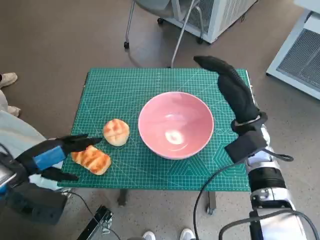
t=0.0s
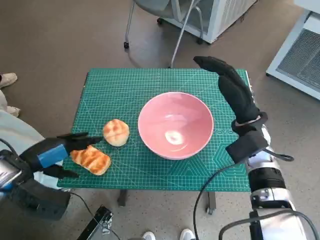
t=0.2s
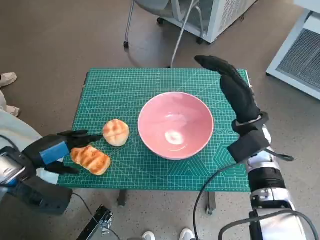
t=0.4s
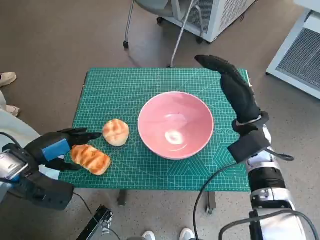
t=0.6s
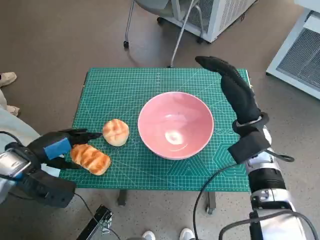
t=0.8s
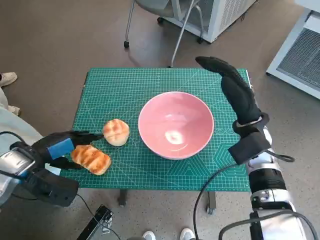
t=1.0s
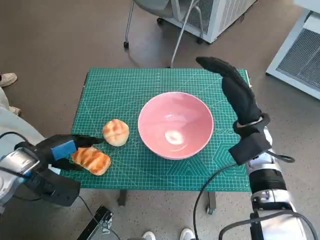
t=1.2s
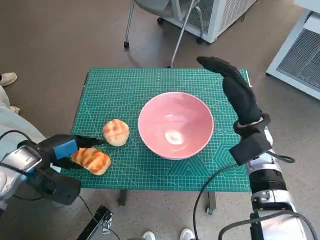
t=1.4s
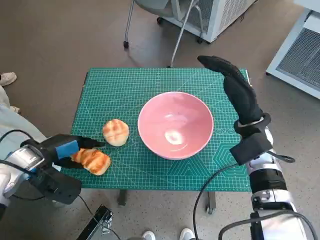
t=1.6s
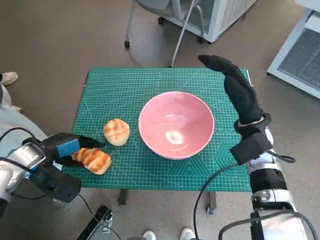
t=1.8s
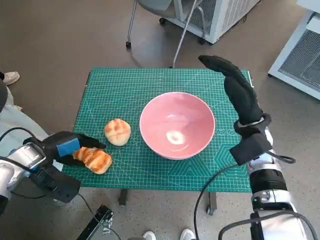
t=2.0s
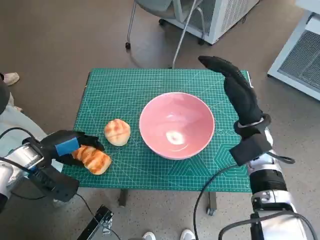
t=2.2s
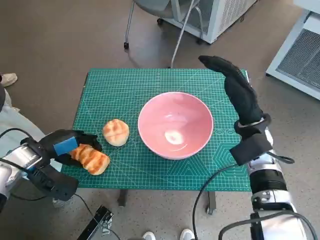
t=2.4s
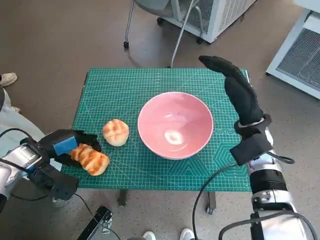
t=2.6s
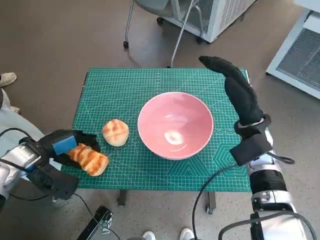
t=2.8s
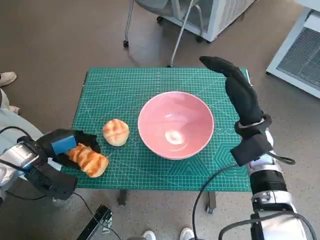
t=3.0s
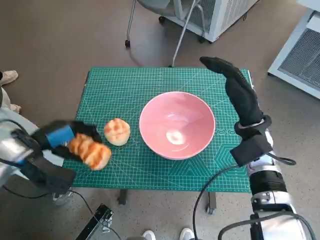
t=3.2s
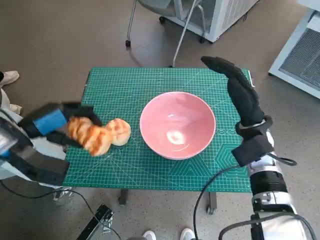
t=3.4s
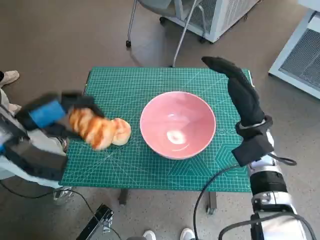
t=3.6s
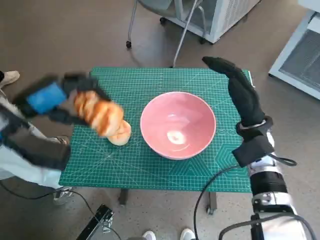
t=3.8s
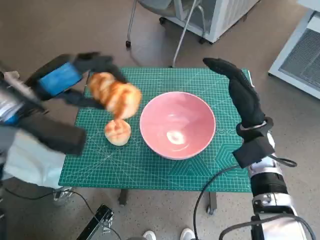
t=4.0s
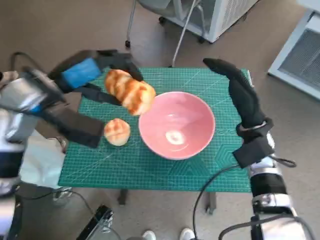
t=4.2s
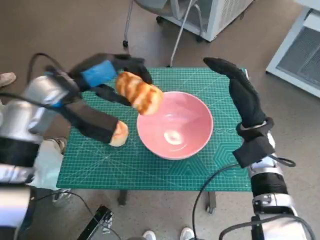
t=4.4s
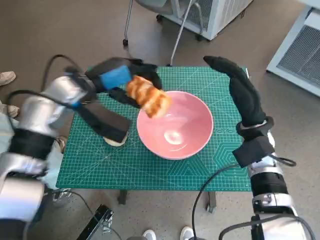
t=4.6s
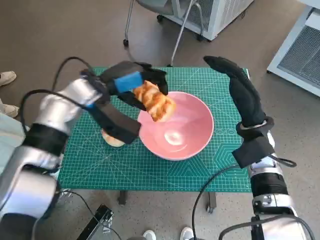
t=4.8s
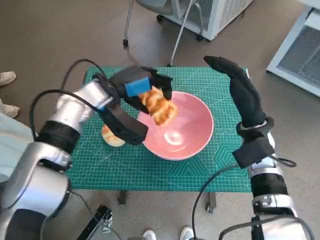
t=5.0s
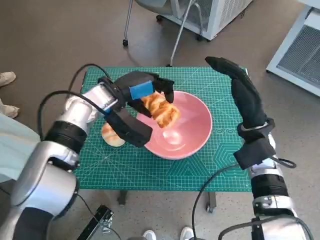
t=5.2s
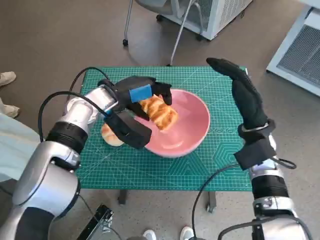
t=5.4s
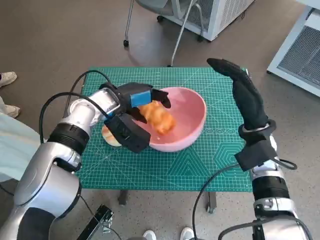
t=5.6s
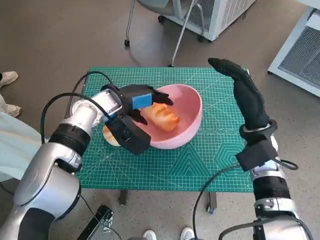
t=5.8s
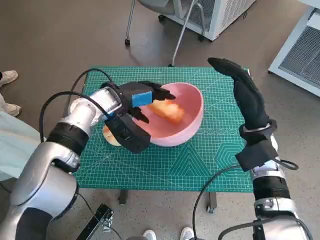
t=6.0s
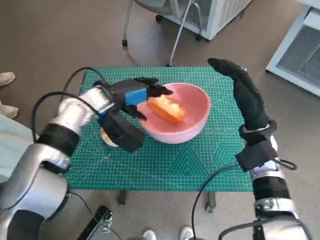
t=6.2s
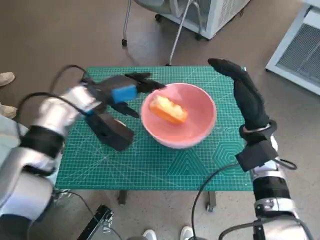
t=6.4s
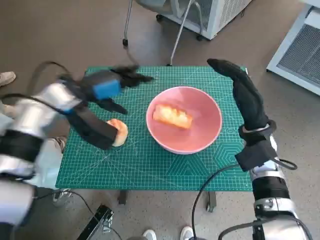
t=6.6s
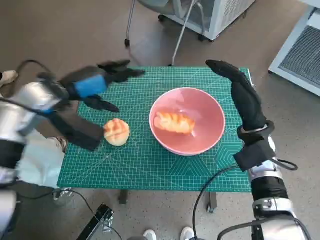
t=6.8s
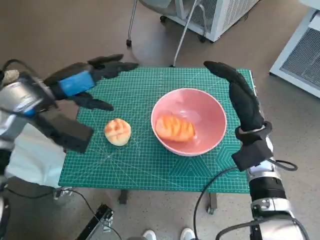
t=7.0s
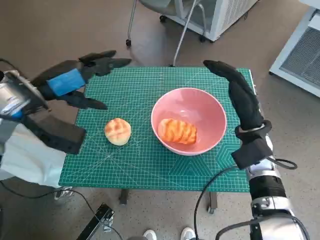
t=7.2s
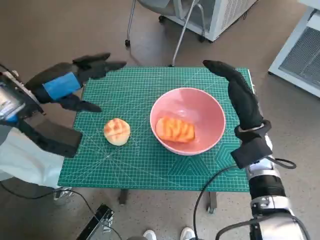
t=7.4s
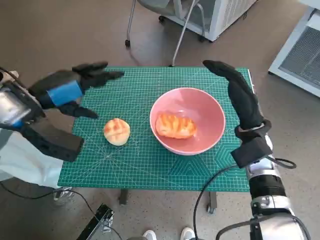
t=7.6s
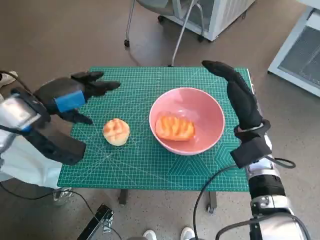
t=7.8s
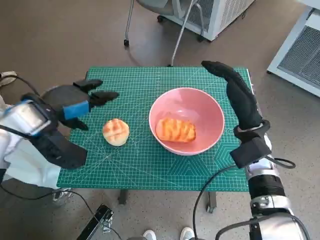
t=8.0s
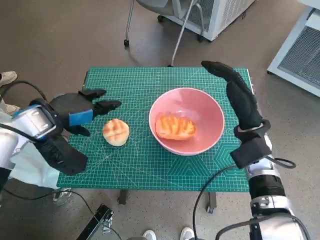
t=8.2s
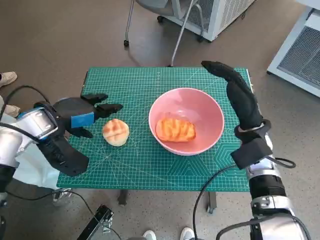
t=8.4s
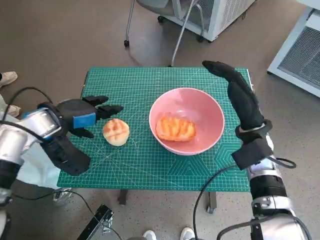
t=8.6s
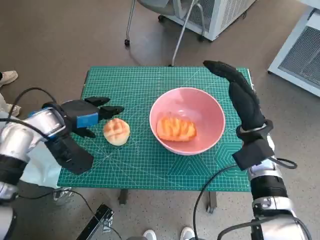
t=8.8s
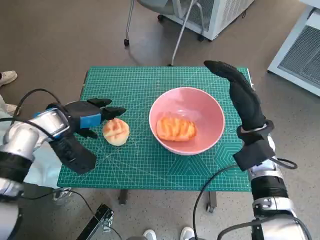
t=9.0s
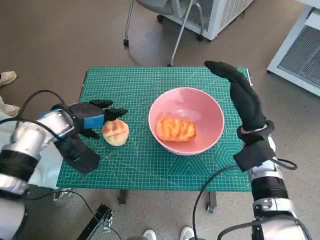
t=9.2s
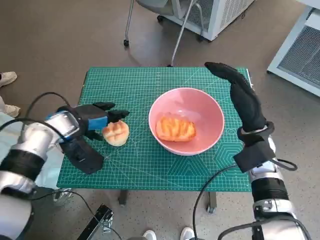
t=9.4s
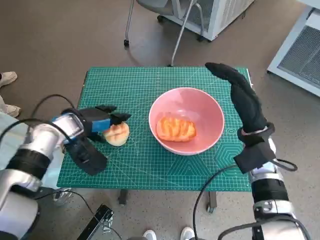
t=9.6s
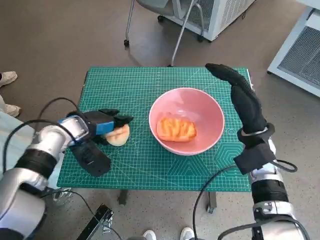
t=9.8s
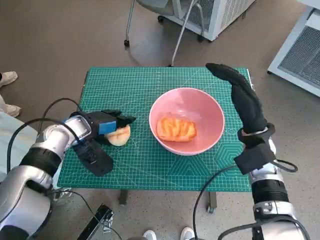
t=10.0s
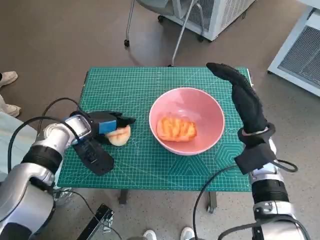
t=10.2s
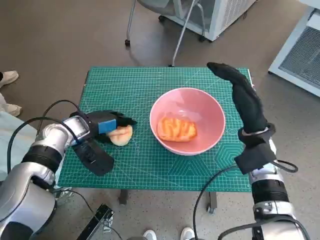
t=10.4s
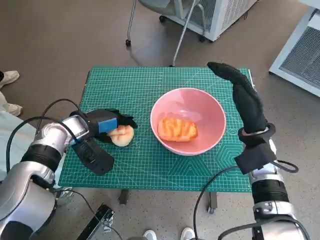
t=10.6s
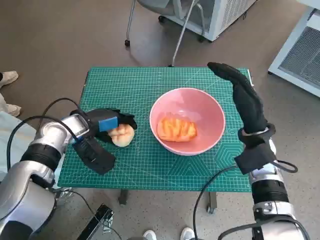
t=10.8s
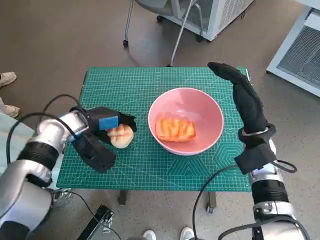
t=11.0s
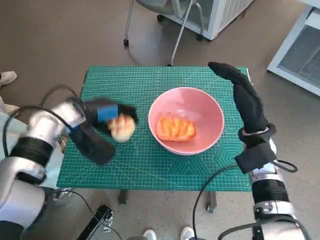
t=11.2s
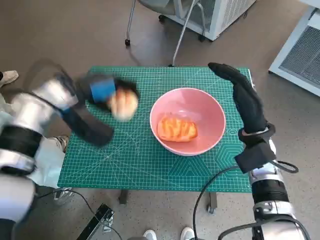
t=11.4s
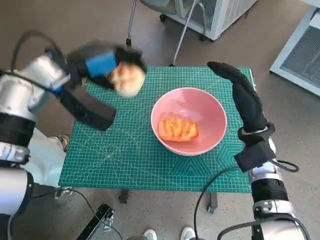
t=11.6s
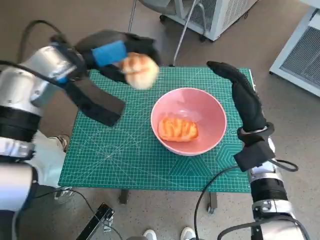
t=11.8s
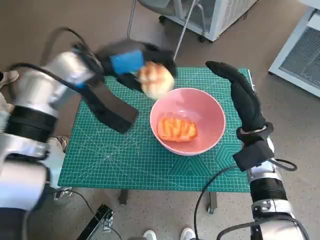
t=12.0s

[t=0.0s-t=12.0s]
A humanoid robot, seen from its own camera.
Task of the whole recording: Push the bowl to the center of the table and put the bread into the bowl.
Step, t=0.0s to t=2.2s: Grasp the long bread with left hand.
Step, t=2.4s to t=6.4s: Place the long bread in pink bowl with left hand.
Step, t=6.6s to t=10.8s: Grasp the round bread with left hand.
t=0.0s to t=1.6s: The left hand moves some 5 cm.
t=1.6s to t=3.0s: The hands stay close to where they were, moving slightly.
t=3.0s to t=4.4s: The left hand moves upward, to the right and forward, some 15 cm.
t=4.4s to t=6.0s: The left hand moves downward and to the right, some 10 cm.
t=6.0s to t=7.6s: The left hand is displaced to the left, upward and backward by about 15 cm.
t=7.6s to t=9.0s: The left hand travels downward by approximately 10 cm.
t=9.0s to t=10.4s: The left hand is displaced downward by approximately 5 cm.
t=10.4s to t=12.0s: The left hand travels upward and to the right by about 15 cm.

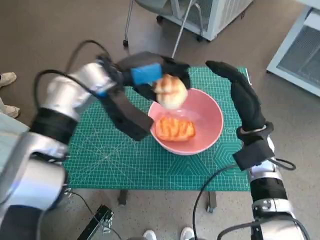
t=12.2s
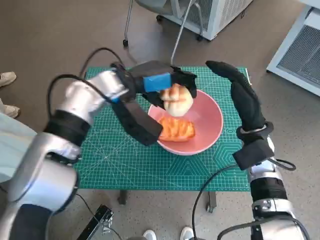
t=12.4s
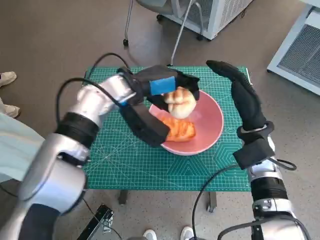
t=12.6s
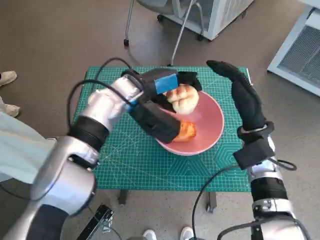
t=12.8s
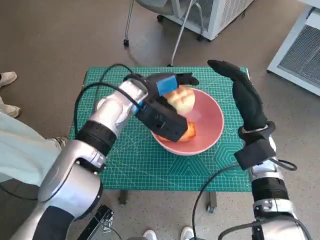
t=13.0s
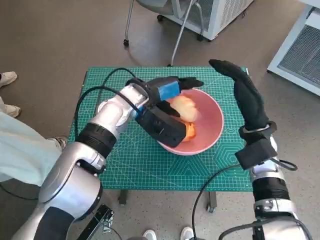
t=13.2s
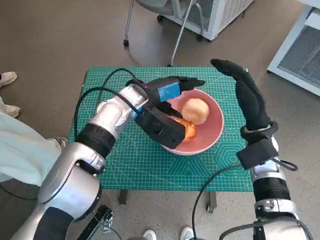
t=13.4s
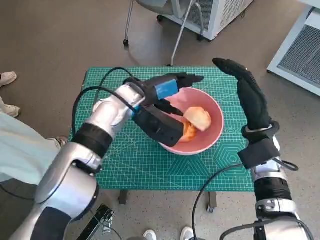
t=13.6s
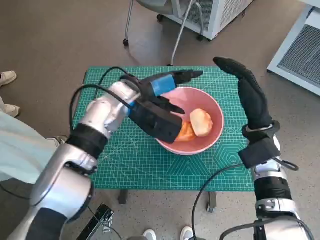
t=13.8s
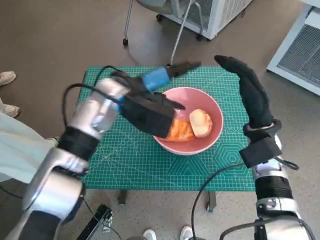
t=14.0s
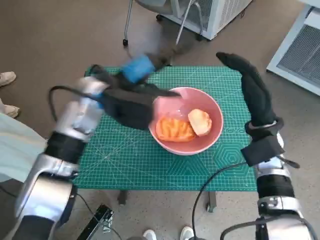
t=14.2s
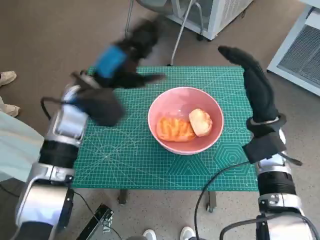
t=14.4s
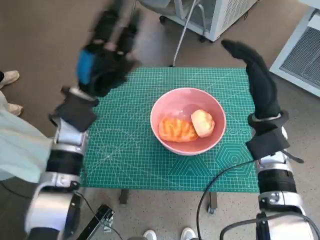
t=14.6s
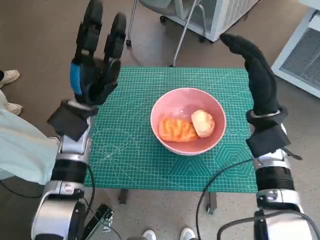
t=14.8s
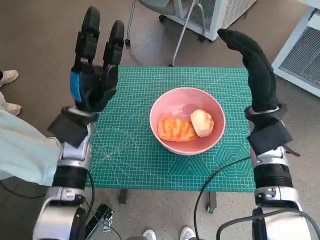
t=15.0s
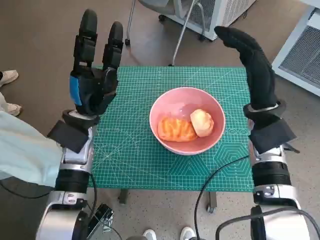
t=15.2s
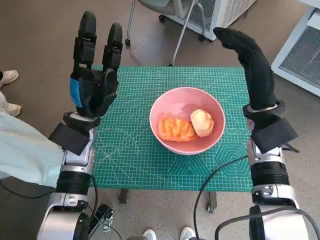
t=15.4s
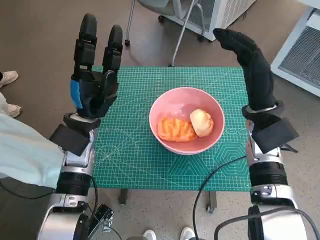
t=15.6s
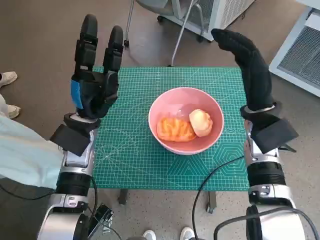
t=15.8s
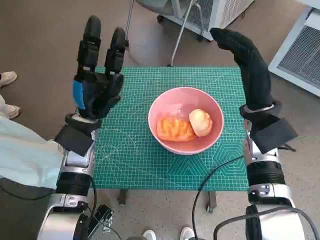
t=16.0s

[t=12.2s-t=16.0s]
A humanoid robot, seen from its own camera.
Task of the whole recording: Push the bowl to the center of the table and put the bread into the bowl.
Step, t=12.2s to t=14.0s: Place the round bread in pink bowl with left hand.
t=12.2s to t=13.4s: The left hand travels downward and to the right by roughly 10 cm.
t=13.4s to t=14.8s: The left hand moves to the left, about 10 cm.
